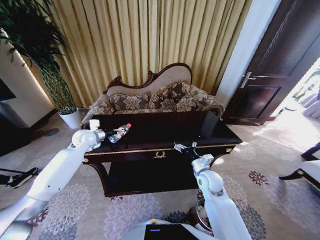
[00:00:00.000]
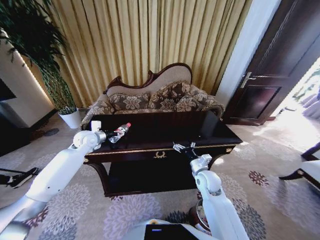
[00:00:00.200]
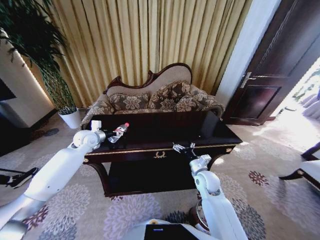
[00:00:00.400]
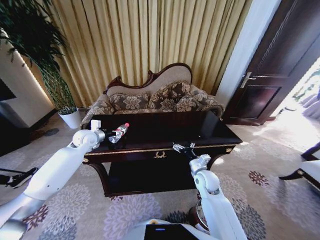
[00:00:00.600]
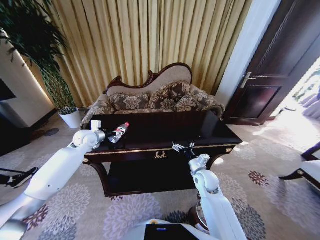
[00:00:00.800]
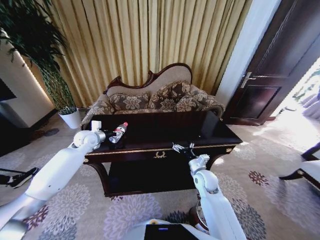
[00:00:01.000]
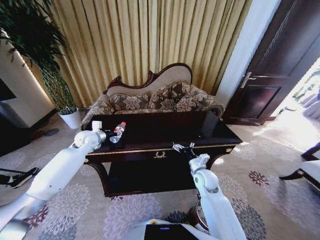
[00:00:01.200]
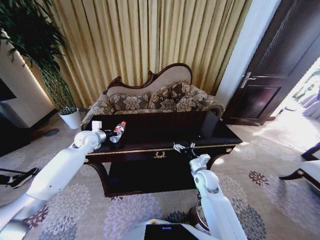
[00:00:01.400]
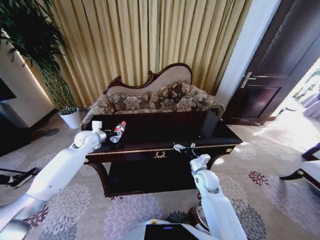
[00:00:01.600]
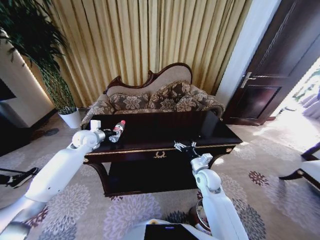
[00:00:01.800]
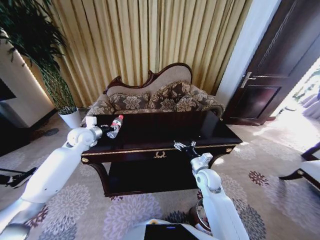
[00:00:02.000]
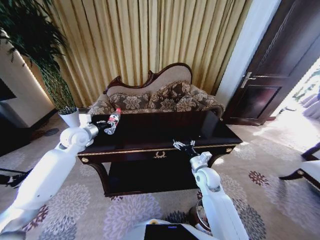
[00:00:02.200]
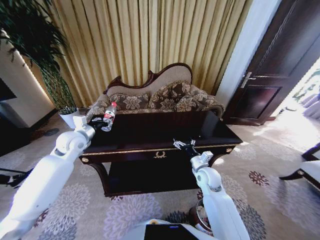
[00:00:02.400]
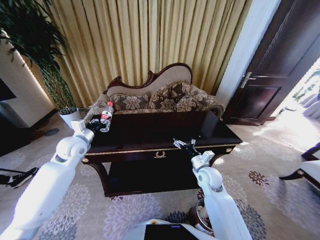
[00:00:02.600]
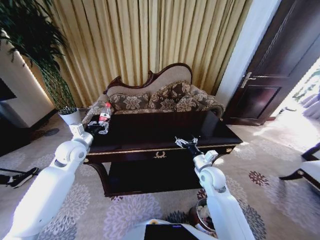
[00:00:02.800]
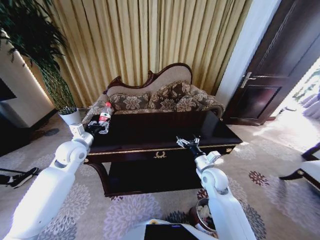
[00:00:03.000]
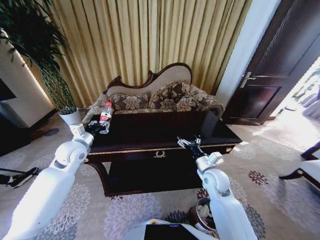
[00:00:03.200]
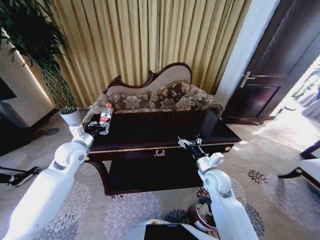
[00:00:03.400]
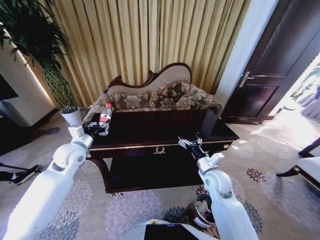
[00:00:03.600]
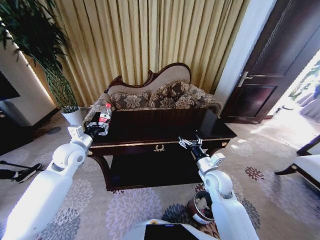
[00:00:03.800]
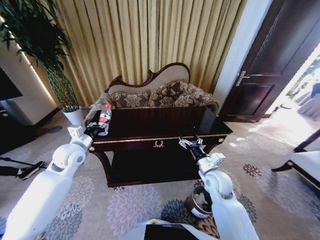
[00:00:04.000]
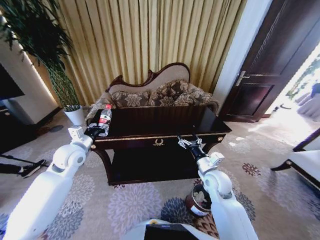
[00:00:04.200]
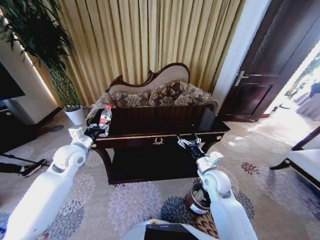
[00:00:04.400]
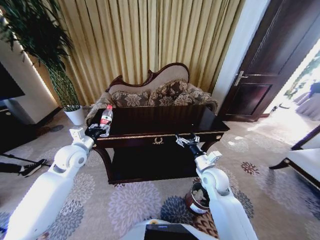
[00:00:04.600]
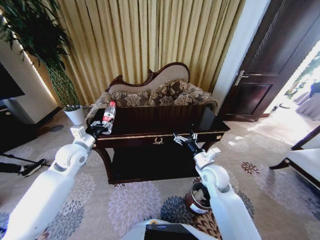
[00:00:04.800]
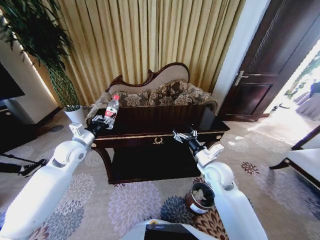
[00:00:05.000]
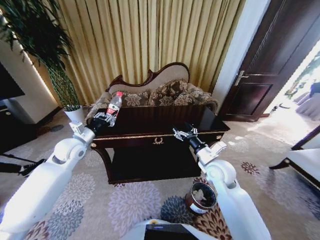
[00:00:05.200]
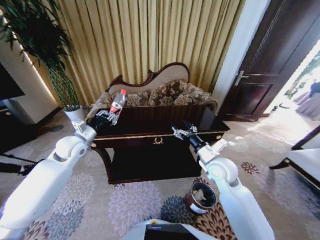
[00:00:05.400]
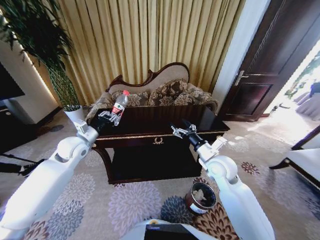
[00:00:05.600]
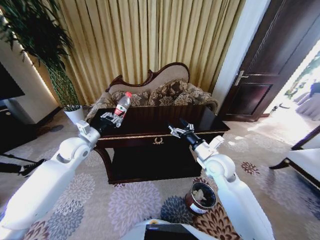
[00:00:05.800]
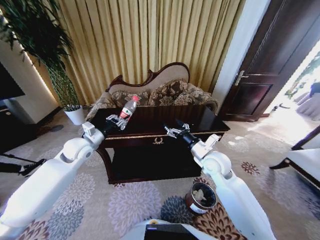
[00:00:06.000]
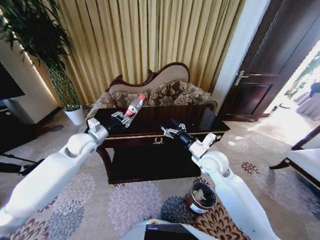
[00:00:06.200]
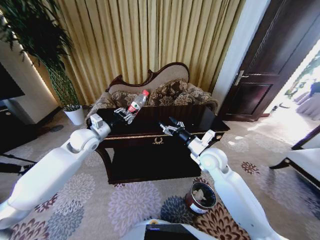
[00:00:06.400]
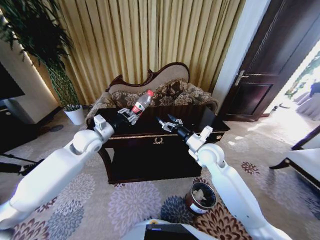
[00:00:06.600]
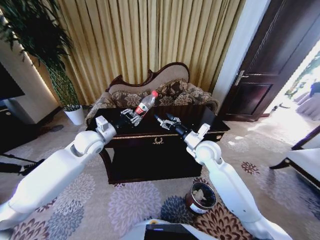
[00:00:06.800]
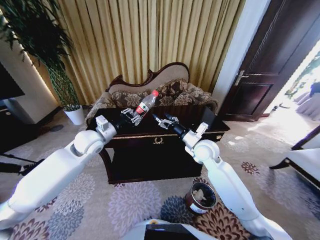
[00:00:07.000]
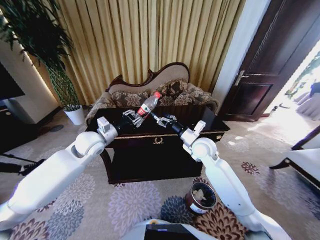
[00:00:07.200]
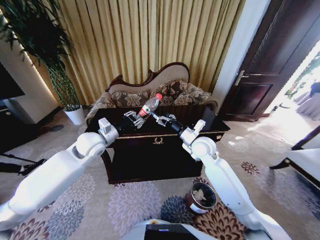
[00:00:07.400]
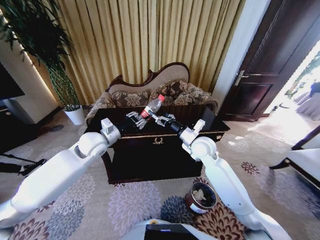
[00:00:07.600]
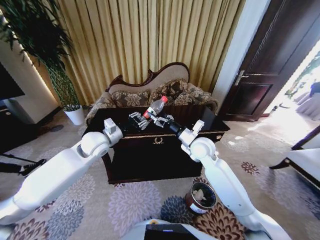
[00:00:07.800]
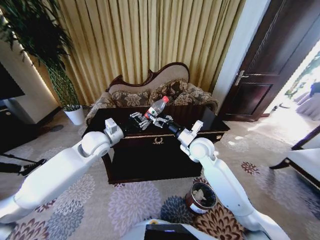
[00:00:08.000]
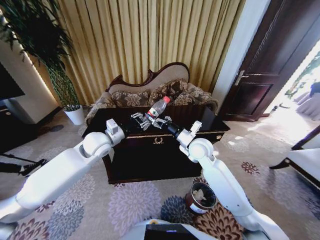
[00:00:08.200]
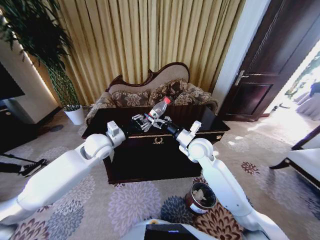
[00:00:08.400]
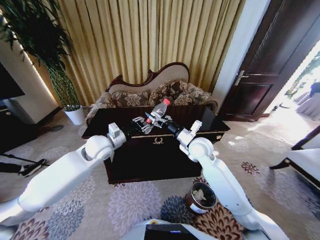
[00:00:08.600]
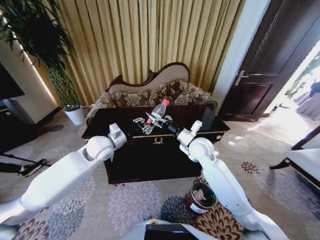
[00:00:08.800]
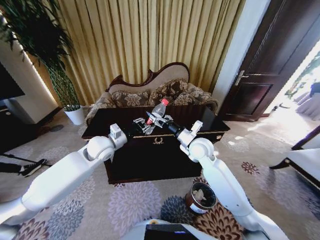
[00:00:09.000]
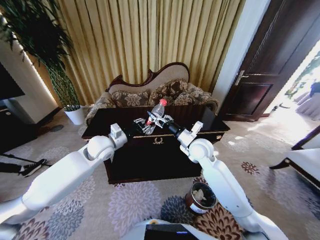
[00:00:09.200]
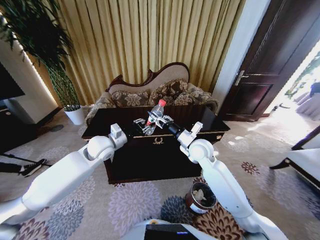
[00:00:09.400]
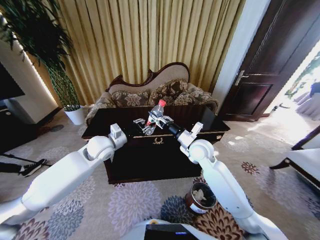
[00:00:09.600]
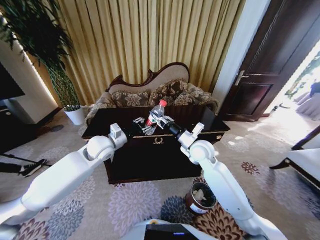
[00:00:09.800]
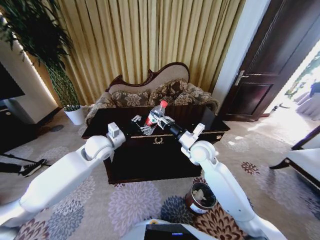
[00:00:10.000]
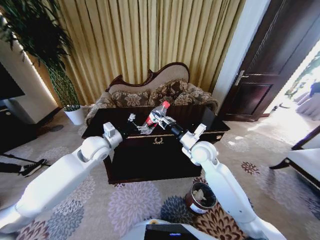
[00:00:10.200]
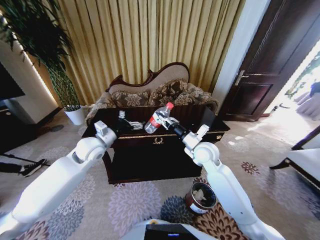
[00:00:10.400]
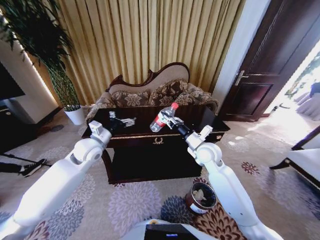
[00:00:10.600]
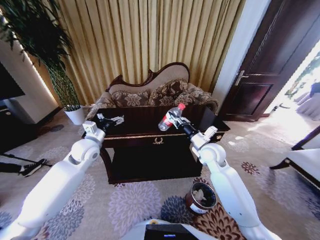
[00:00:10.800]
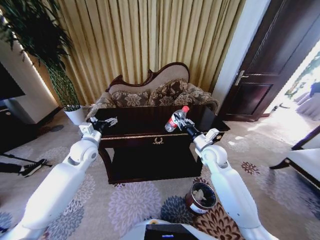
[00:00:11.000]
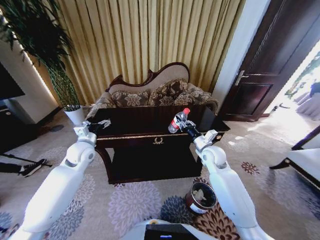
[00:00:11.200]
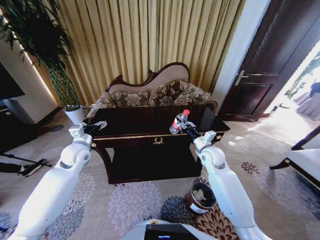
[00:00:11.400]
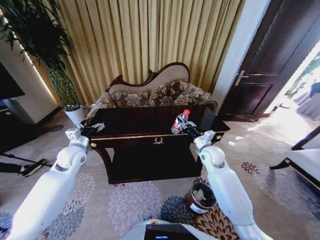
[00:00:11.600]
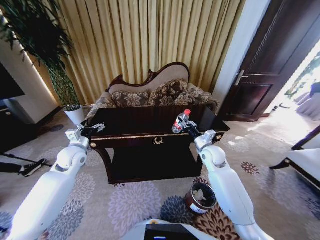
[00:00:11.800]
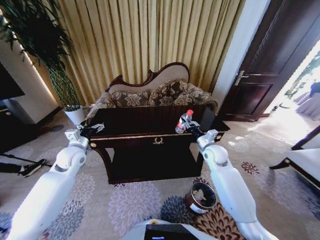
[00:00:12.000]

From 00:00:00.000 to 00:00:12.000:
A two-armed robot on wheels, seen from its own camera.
Task of the whole recording: Move to the front of the table and place the trash on the table into the trash bin.
From 00:00:00.000 to 00:00:01.600: The left gripper closes its fingers.
From 00:00:01.600 to 00:00:03.000: The left gripper travels backward by approximately 10 cm.
From 00:00:04.400 to 00:00:06.000: The right gripper heads upward, covering some 5 cm.
From 00:00:06.000 to 00:00:07.600: The right gripper shifts approximately 5 cm forward, while the left gripper travels to the right by about 5 cm.
From 00:00:07.600 to 00:00:09.000: The grippers stay close to where they were, moving slightly.
From 00:00:09.000 to 00:00:10.400: The left gripper opens. Meanwhile the right gripper closes.
From 00:00:10.400 to 00:00:12.000: The left gripper shifts approximately 10 cm to the left and downward, while the right gripper goes roughly 10 cm to the right and downward.

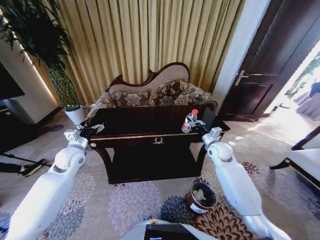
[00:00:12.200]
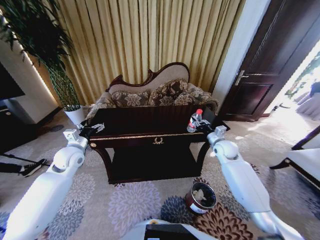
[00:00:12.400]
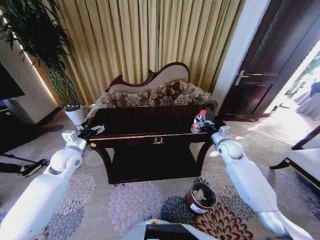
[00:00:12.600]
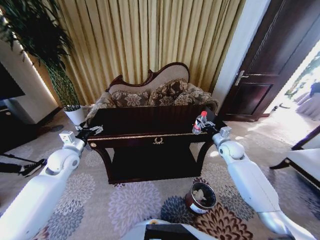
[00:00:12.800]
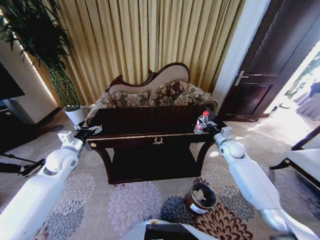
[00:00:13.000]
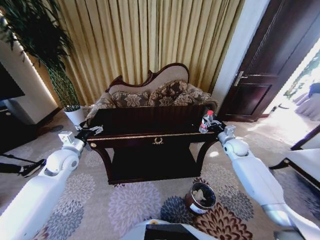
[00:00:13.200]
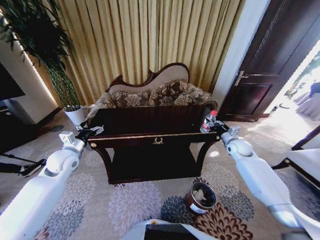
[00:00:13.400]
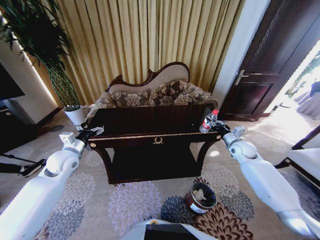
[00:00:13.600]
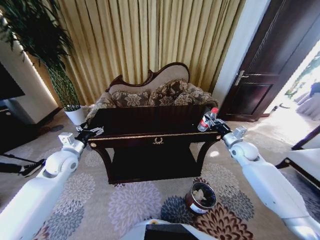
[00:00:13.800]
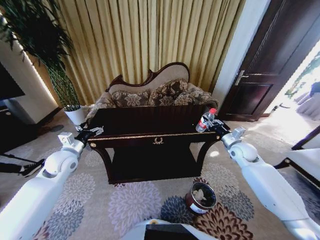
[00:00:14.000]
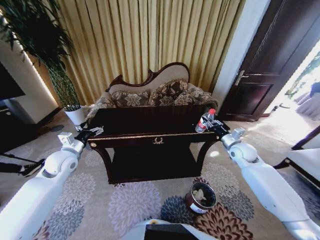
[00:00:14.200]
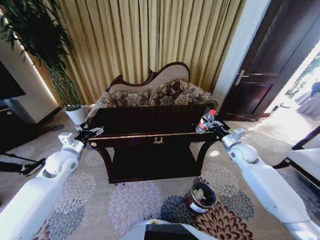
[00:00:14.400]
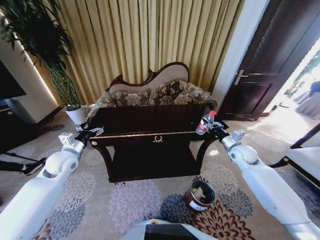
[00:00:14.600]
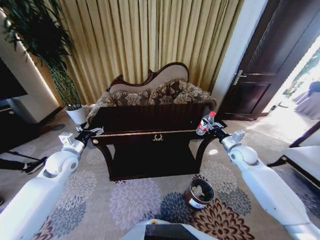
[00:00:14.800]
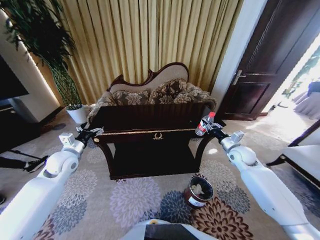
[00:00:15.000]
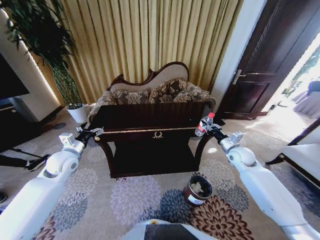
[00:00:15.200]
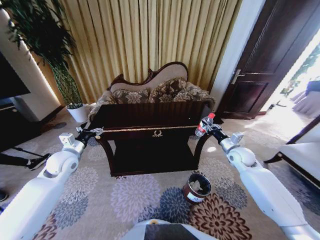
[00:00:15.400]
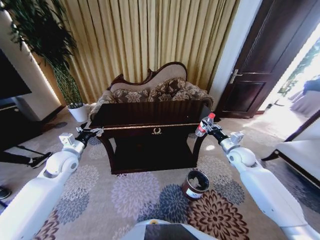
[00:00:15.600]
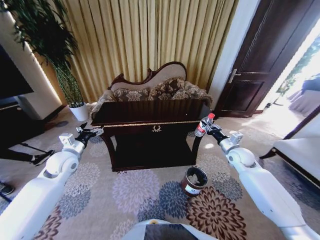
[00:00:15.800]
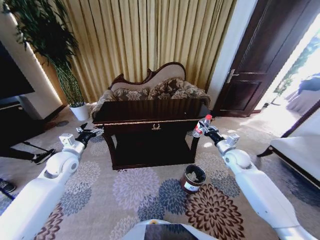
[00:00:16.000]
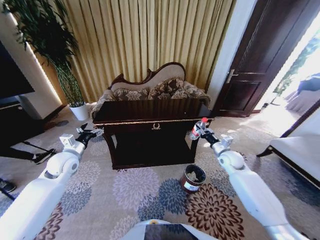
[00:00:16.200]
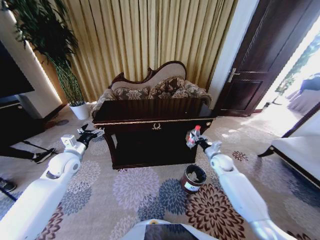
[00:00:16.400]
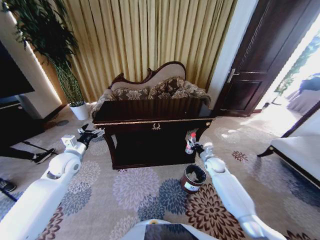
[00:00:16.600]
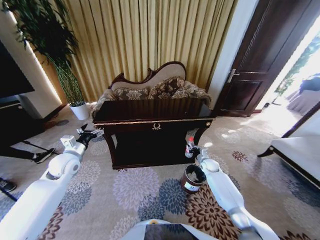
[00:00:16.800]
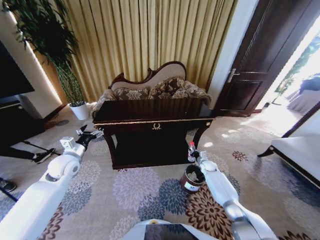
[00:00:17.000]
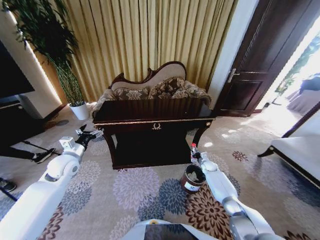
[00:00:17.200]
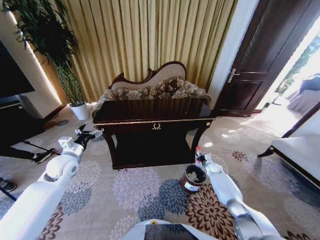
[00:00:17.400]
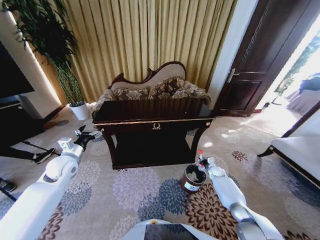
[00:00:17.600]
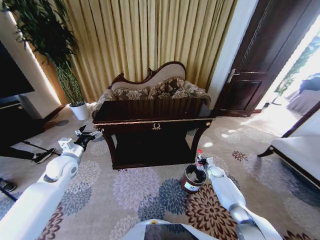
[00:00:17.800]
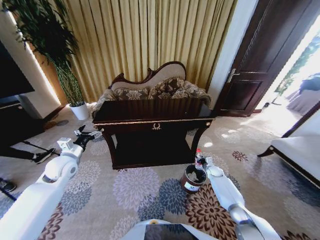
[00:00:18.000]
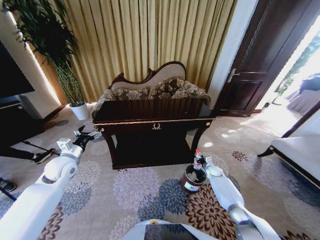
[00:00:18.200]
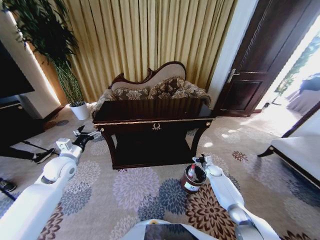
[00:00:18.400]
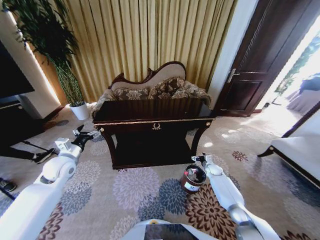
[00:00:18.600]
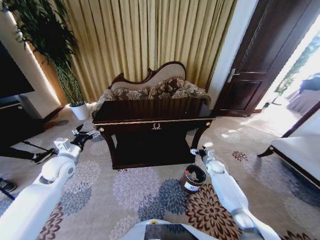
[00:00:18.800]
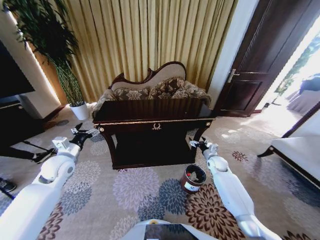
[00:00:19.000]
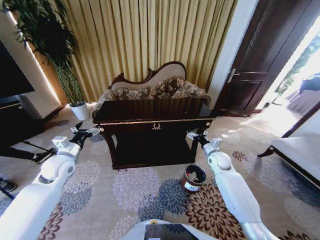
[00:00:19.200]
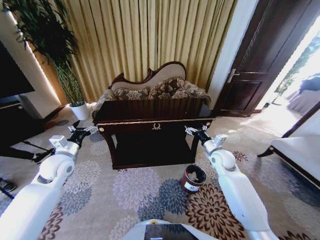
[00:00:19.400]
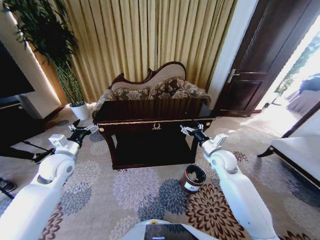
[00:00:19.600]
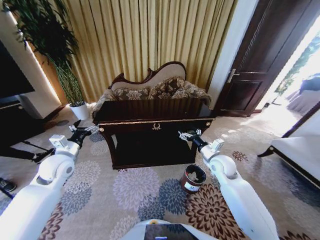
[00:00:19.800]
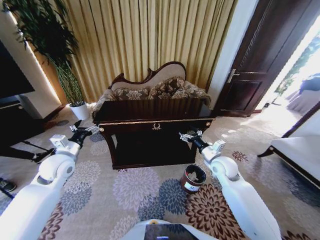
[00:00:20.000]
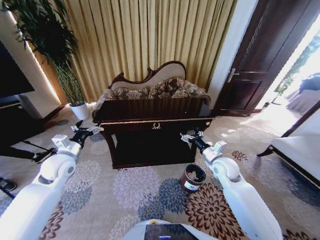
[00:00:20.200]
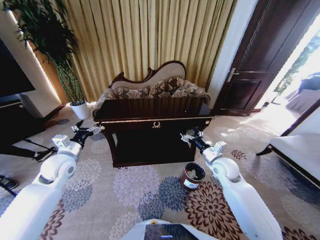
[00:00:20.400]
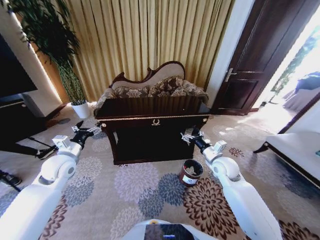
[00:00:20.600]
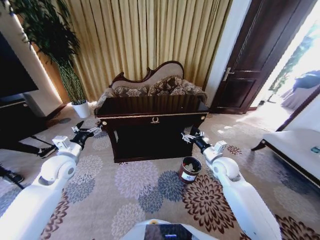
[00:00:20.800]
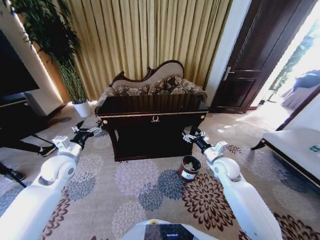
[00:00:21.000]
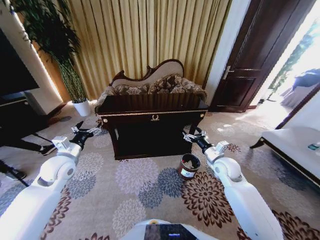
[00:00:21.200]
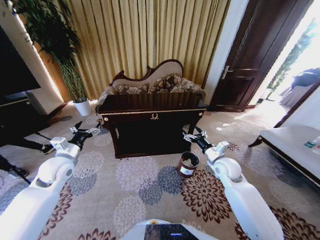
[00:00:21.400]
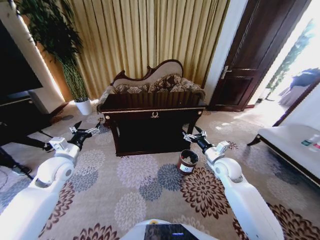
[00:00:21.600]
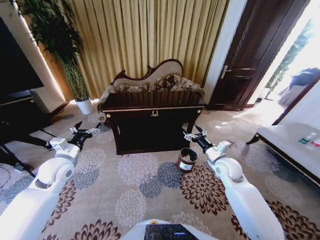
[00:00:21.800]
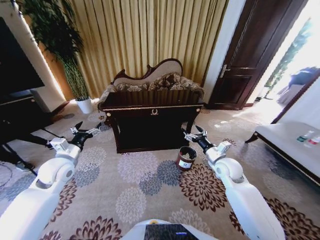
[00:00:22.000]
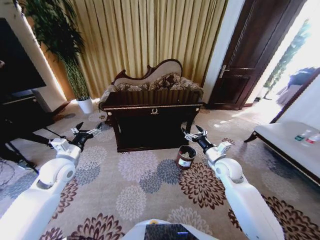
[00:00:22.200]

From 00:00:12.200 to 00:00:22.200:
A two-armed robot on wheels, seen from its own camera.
Task of the whole recording: Move to the front of the table and place the trash on the table into the trash bin.
From 00:00:12.200 to 00:00:13.600: The right gripper goes approximately 10 cm to the right.
From 00:00:15.000 to 00:00:16.400: The right gripper is displaced downward and to the left by about 10 cm.
From 00:00:16.400 to 00:00:18.000: The right gripper travels downward by about 15 cm.
From 00:00:18.000 to 00:00:19.400: The right gripper is displaced upward by about 25 cm, and opens.
